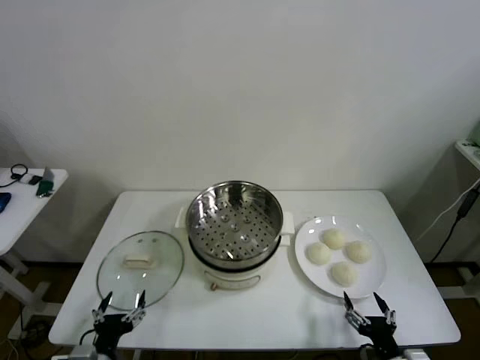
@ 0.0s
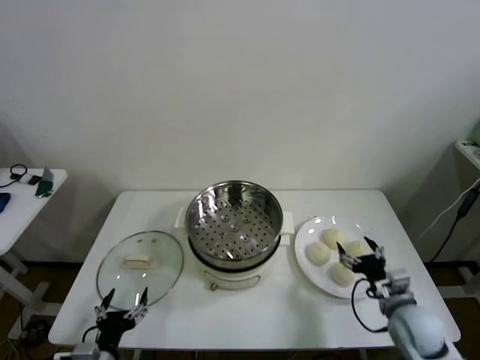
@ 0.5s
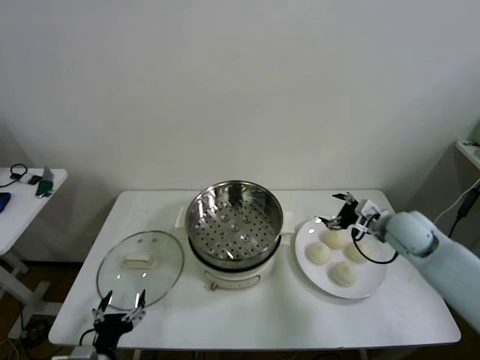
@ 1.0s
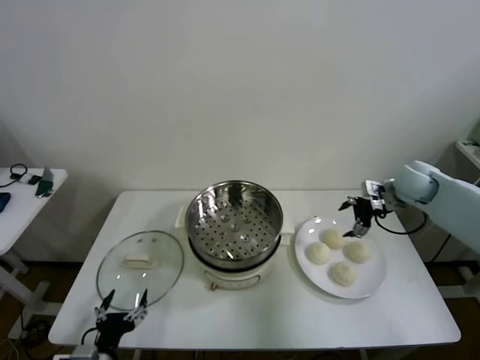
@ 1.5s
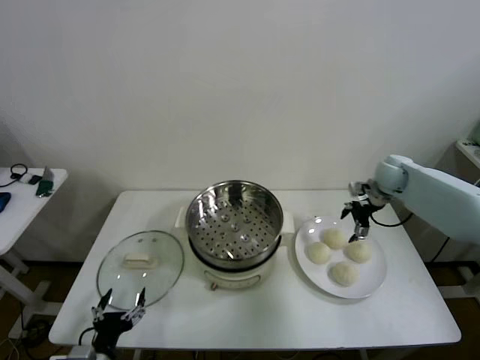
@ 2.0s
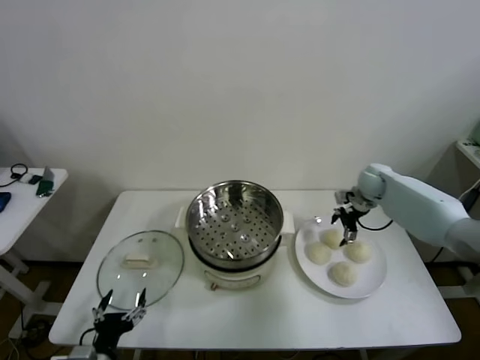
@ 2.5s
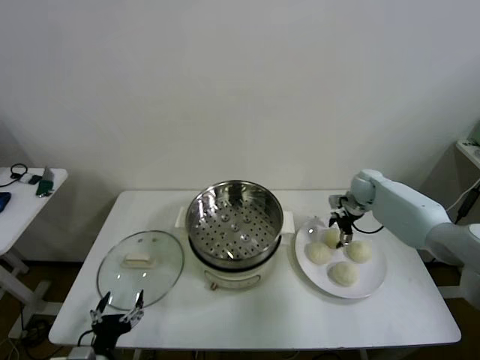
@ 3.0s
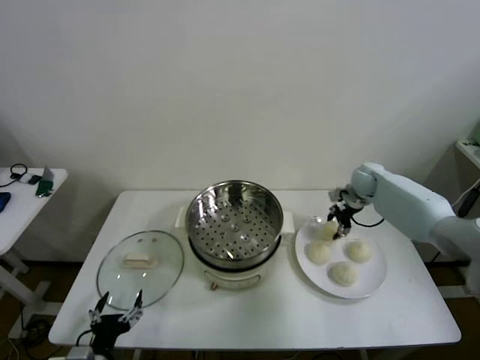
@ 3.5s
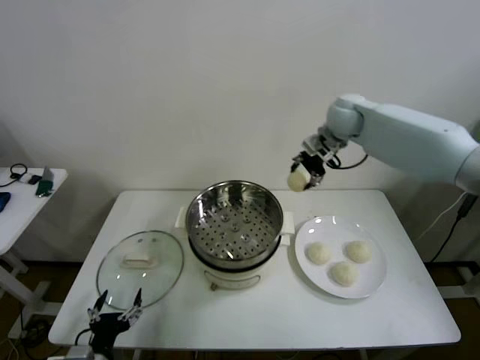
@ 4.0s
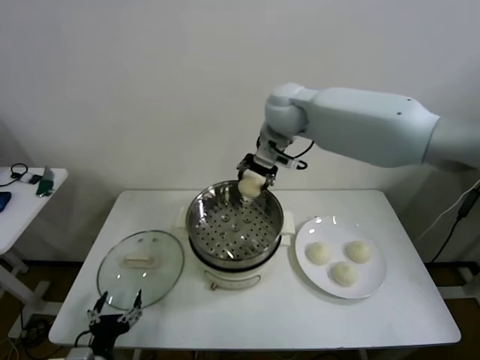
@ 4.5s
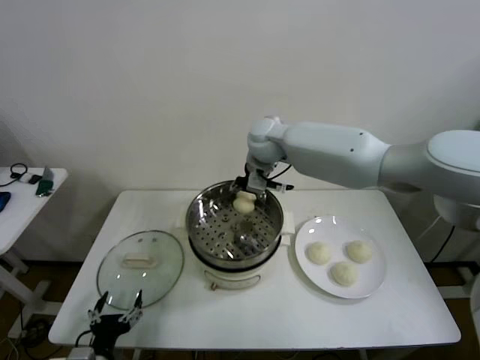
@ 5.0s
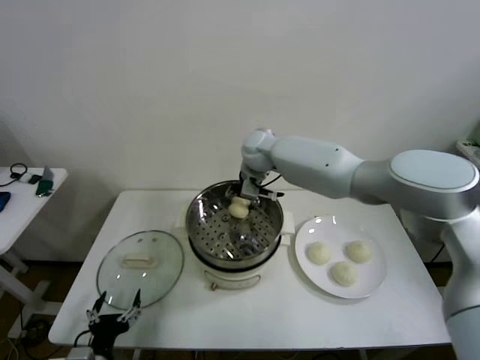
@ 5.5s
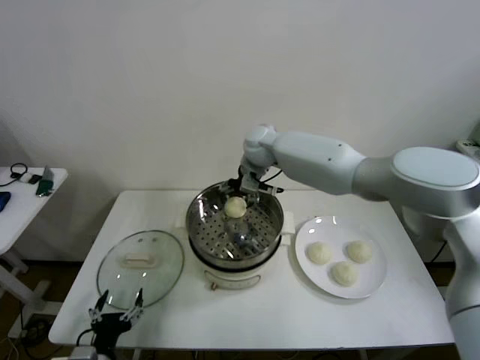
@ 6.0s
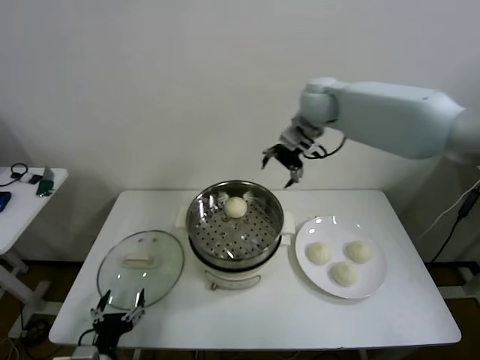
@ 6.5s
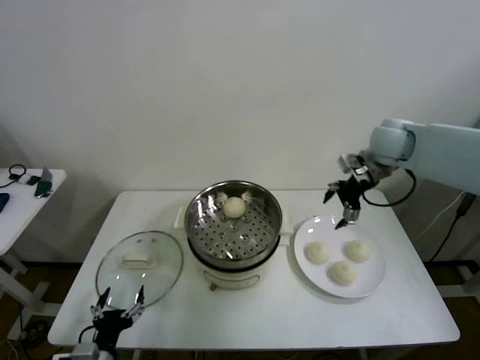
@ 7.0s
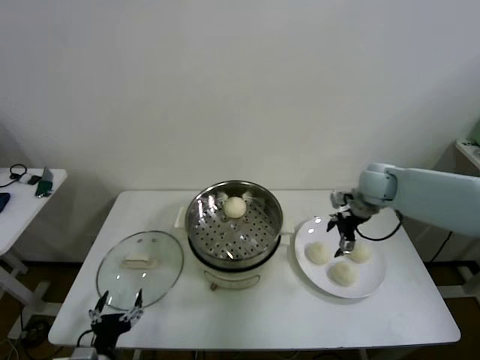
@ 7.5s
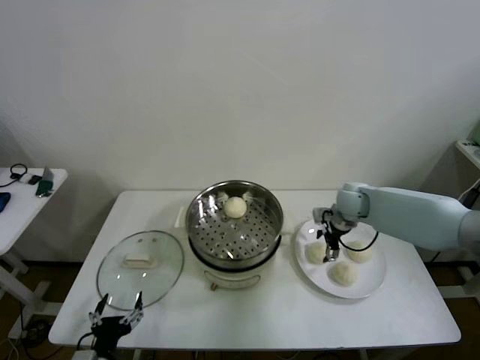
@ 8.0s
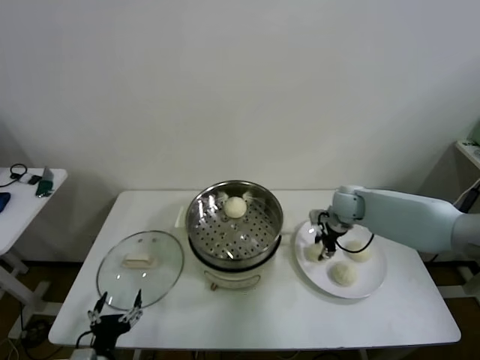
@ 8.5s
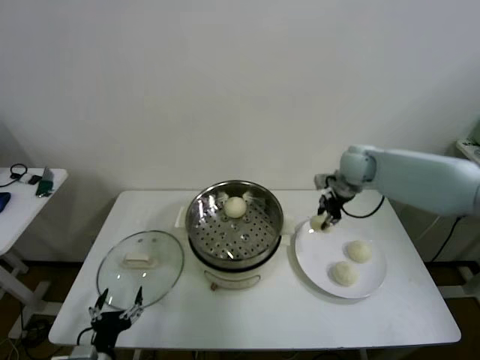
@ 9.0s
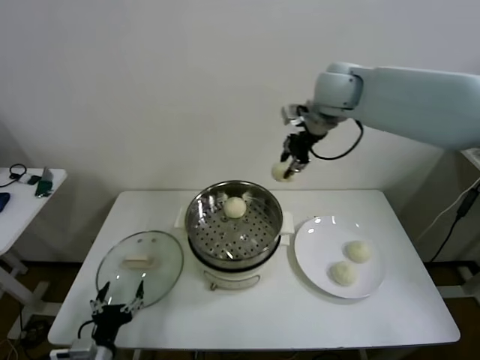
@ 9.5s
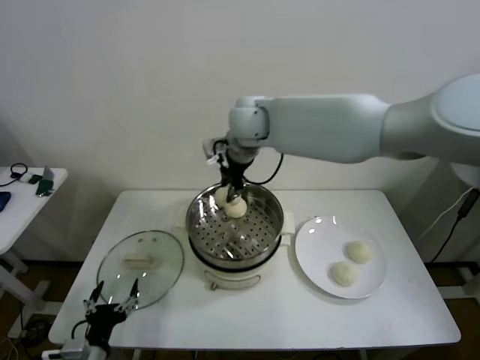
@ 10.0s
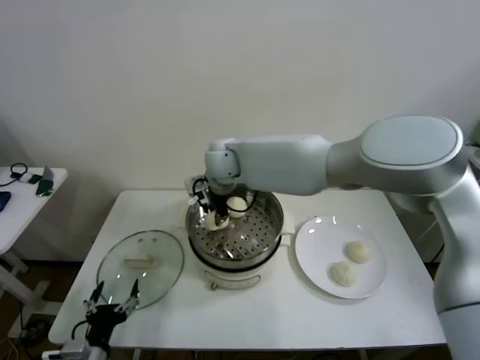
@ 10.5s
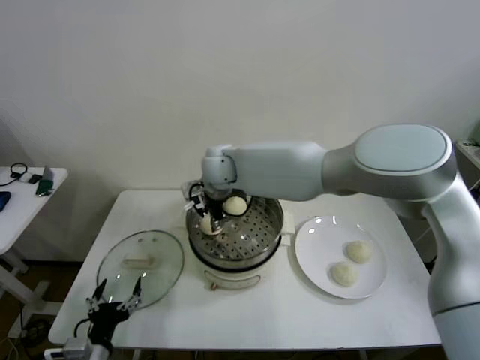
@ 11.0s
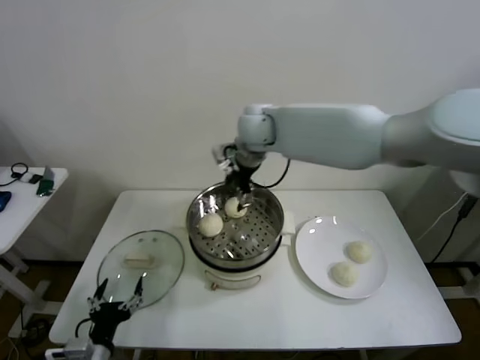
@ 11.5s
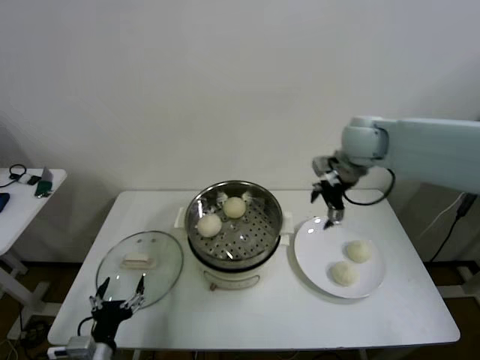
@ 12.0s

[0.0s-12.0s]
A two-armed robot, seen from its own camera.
Step, 0.0s to 3.0s: Grasp the baozi in the plate with right gripper.
Step, 3.5s to 5.5s: Place the baozi on the steamer with right gripper.
Step, 6.0s to 8.0s: Grasp the baozi in the plate with right gripper.
Step, 8.5s to 11.0s: Place the baozi on the steamer with right gripper.
2.0s to 4.0s: The right gripper is displaced upward and to the left by approximately 25 cm, and closes up.
4.0s to 6.0s: The right gripper heads to the left and downward, covering approximately 15 cm, and opens.
6.0s to 8.0s: The right gripper shifts approximately 30 cm to the right and downward.
8.0s to 10.0s: The right gripper heads to the left and upward, covering about 35 cm, and closes up.
10.0s to 12.0s: The right gripper travels to the right by approximately 25 cm, and opens up.

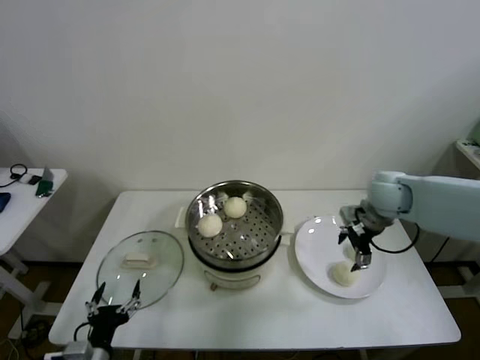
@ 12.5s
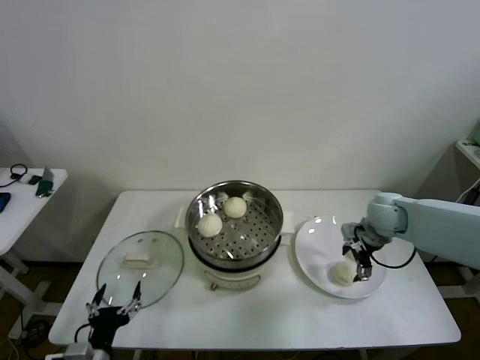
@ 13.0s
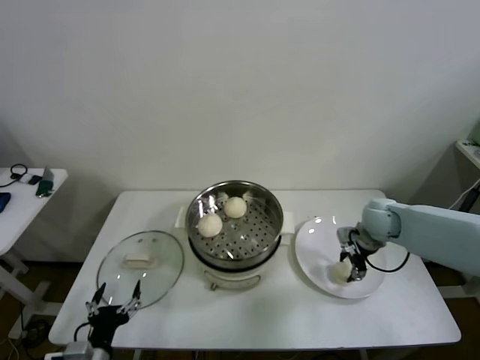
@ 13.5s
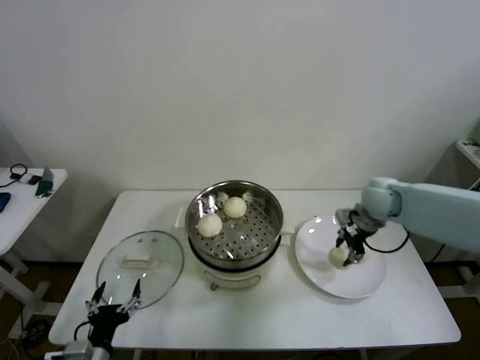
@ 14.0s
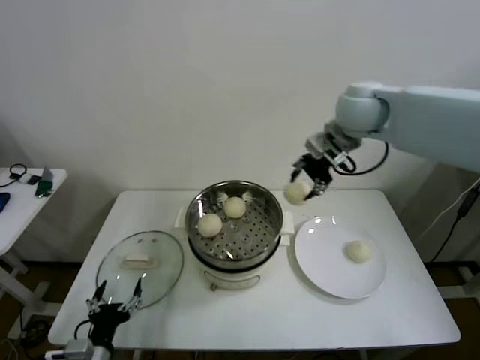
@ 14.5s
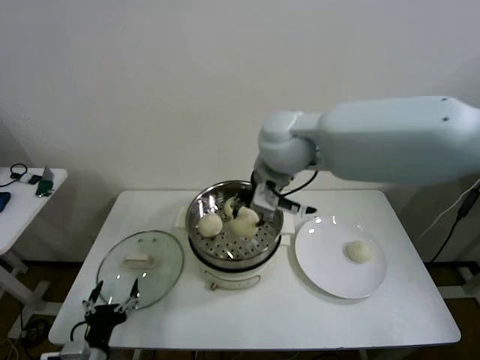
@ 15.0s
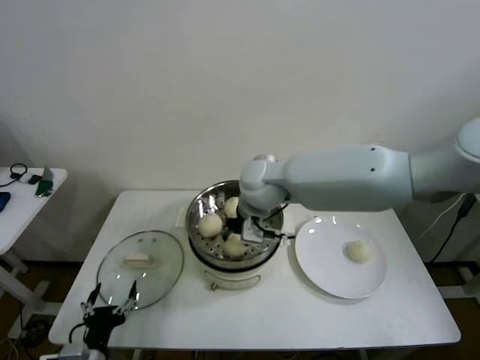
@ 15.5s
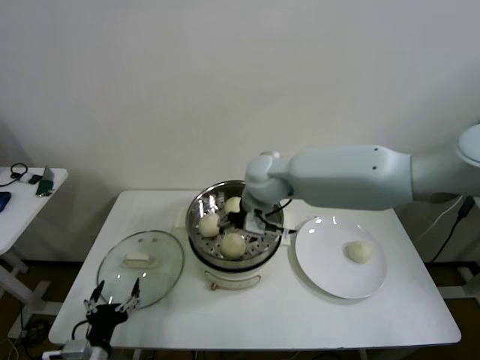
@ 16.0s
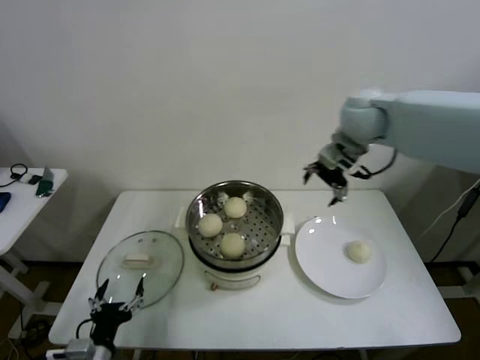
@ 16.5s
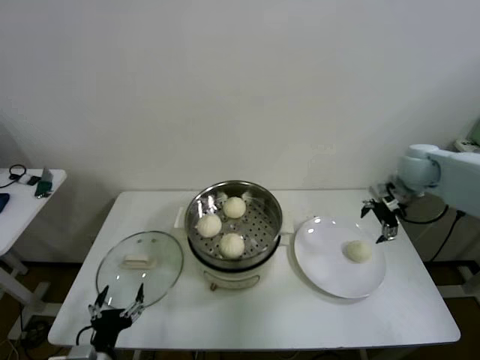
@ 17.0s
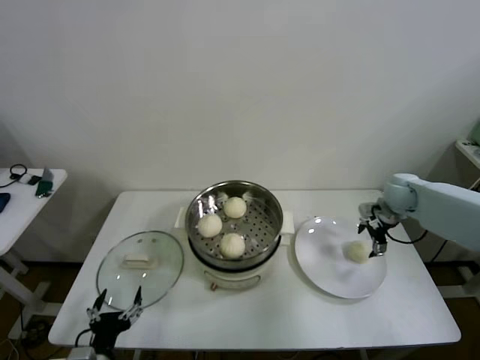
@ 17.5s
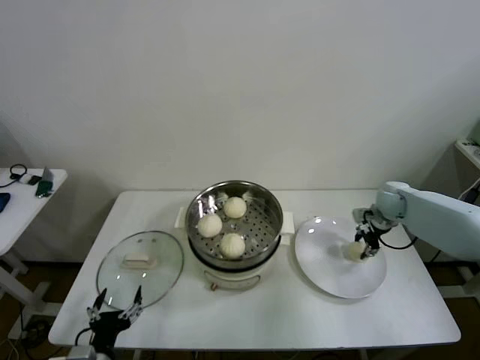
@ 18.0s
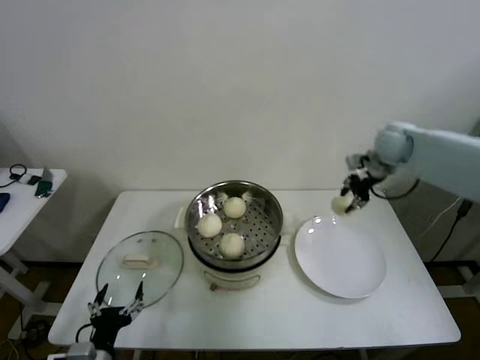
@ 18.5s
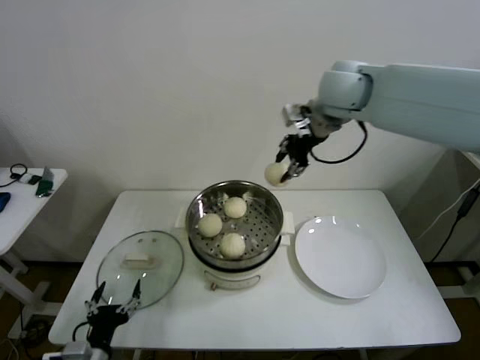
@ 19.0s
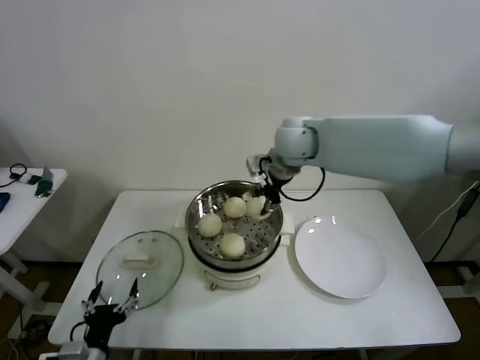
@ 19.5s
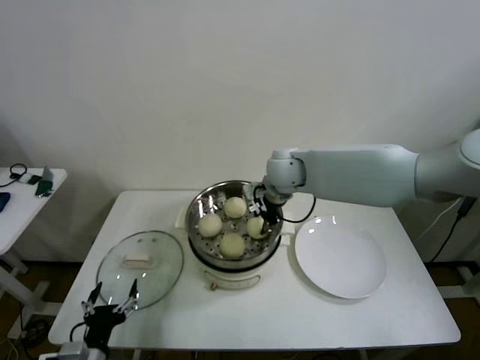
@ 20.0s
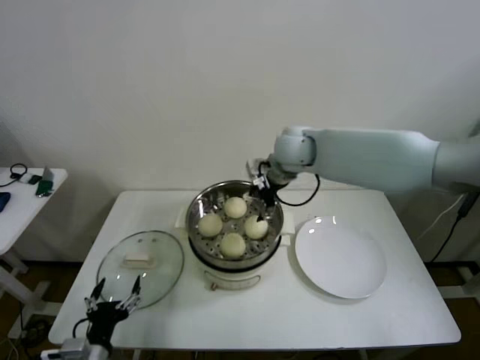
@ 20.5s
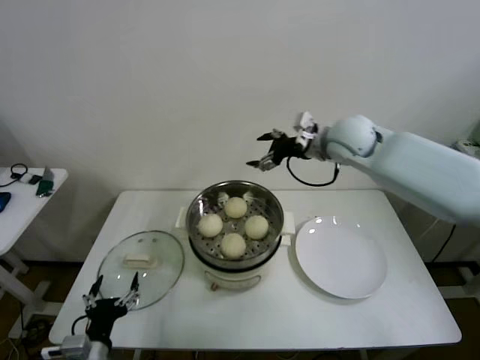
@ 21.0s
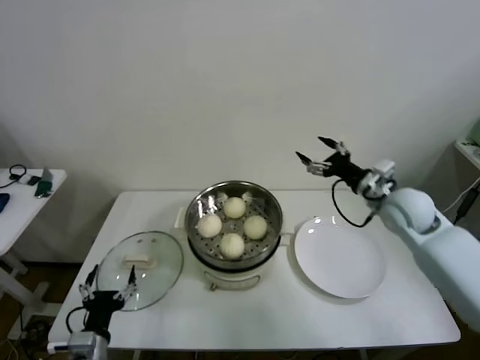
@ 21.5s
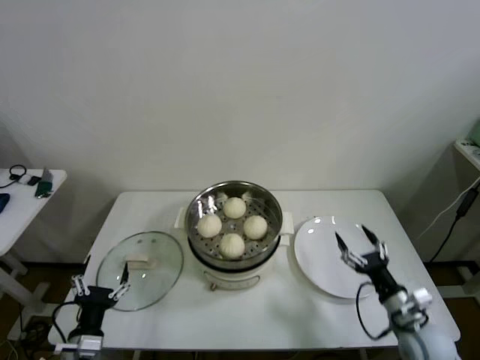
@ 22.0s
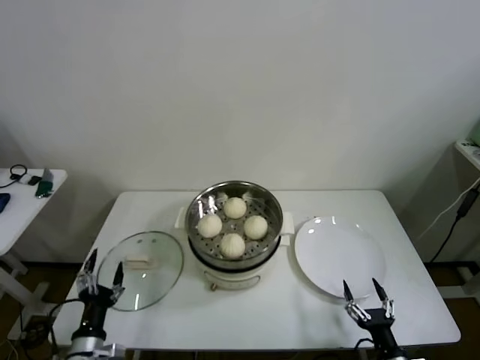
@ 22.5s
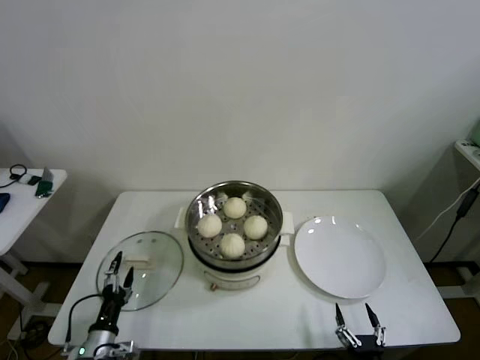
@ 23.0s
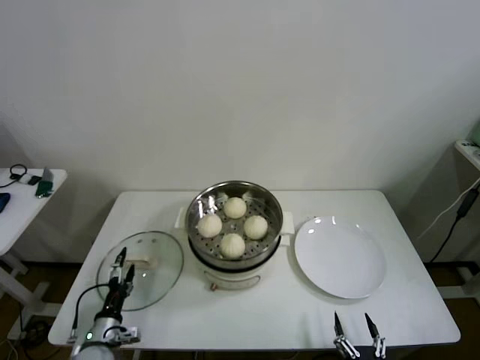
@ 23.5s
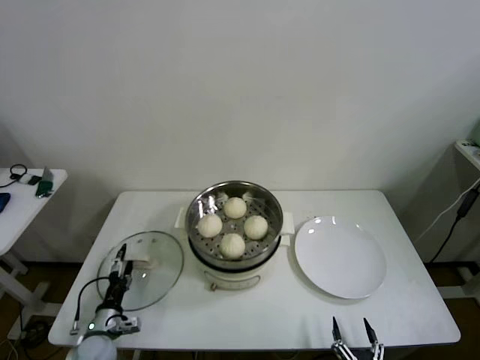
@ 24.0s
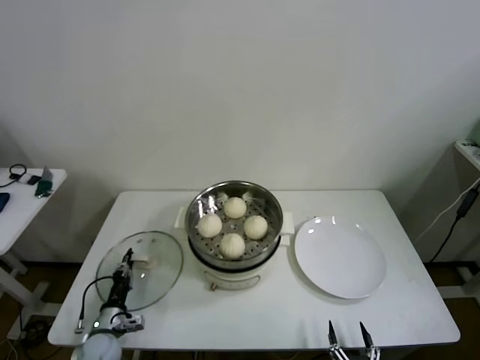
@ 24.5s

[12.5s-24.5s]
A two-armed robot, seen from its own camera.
Step, 14.0s to 15.5s: Place the baozi on the steamer with right gripper.
Step, 16.0s to 18.0s: Grasp the baozi in the plate with right gripper.
Step, 18.5s to 20.0s: Place the baozi on the steamer with right gripper.
12.5s to 14.5s: The right gripper heads upward and to the left, covering approximately 25 cm, and closes its fingers.
14.5s to 16.5s: The right gripper travels to the left and back again, about 15 cm each way, and opens its fingers.
16.5s to 18.5s: The right gripper goes some 10 cm to the right, travels downward and back again, some 25 cm each way, and closes its fingers.
18.5s to 20.5s: The right gripper travels to the left by approximately 25 cm, and opens.
20.5s to 22.5s: The right gripper goes roughly 60 cm backward, downward and to the right.
22.5s to 24.5s: The right gripper travels backward and to the left by roughly 10 cm. Meanwhile the left gripper heads downward and forward, covering roughly 15 cm, and closes up.

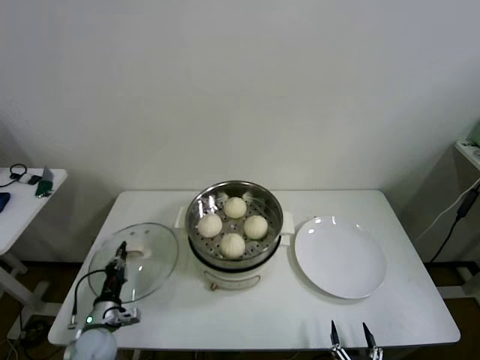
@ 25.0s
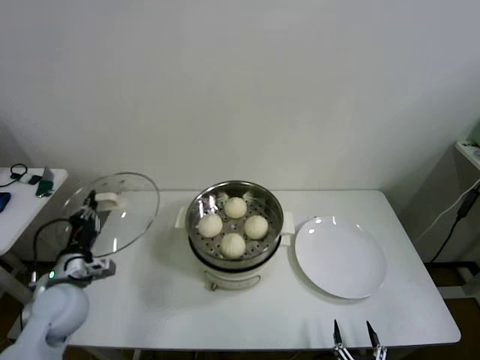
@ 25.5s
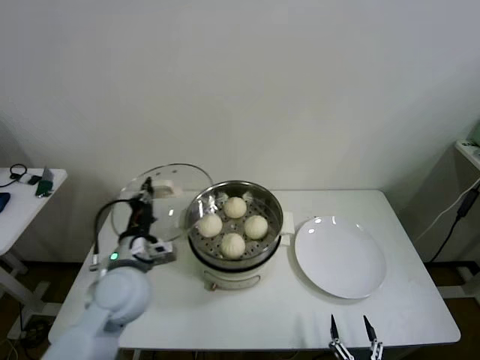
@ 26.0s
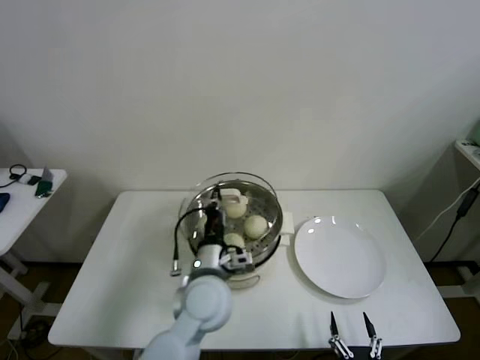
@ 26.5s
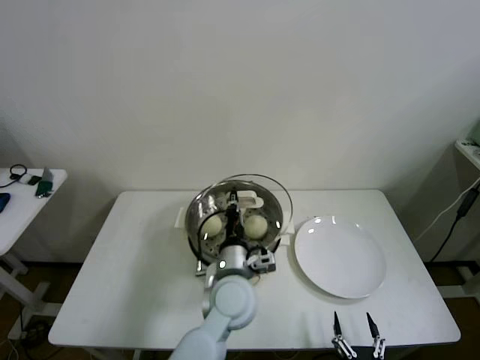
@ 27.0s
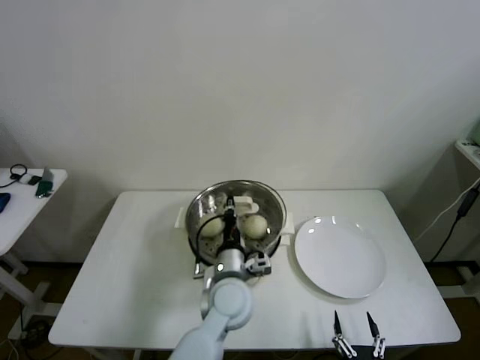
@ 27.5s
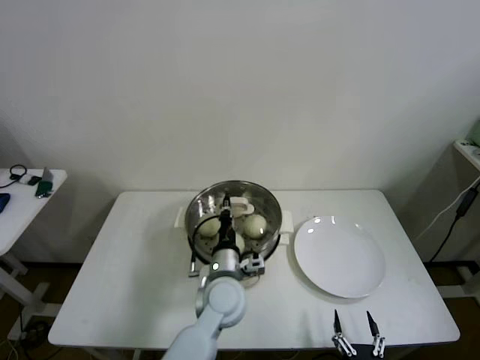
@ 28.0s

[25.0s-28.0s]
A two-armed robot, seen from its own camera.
25.0s to 26.5s: The left gripper travels to the right and upward by about 35 cm.
26.5s to 28.0s: The left gripper shifts some 5 cm downward.
